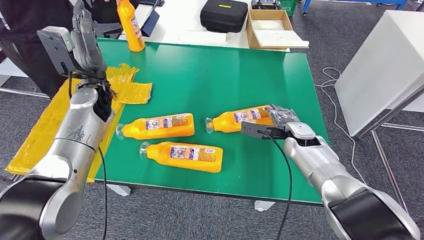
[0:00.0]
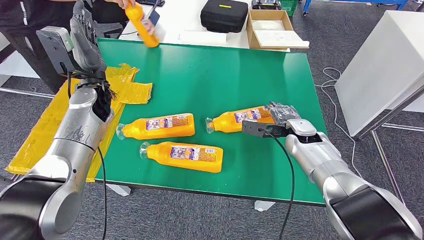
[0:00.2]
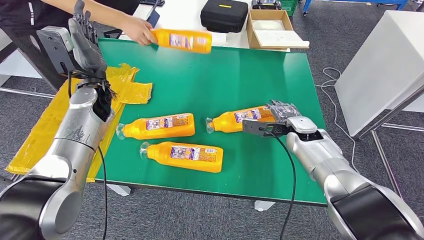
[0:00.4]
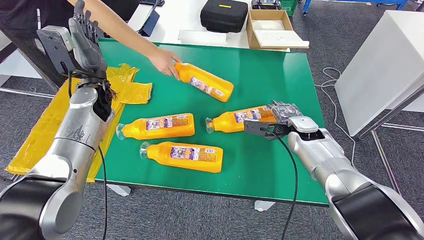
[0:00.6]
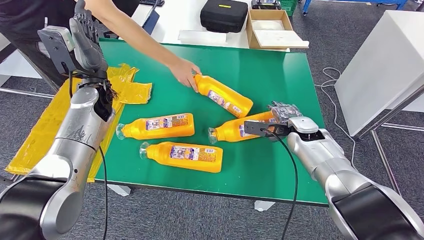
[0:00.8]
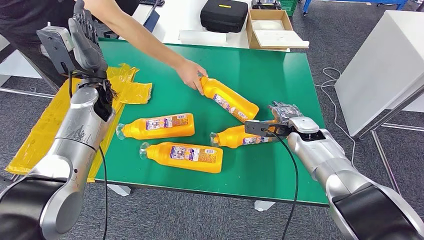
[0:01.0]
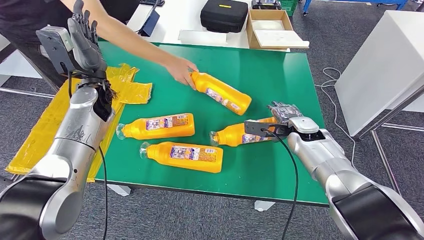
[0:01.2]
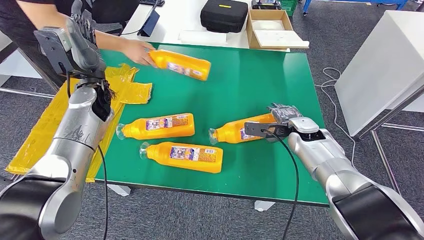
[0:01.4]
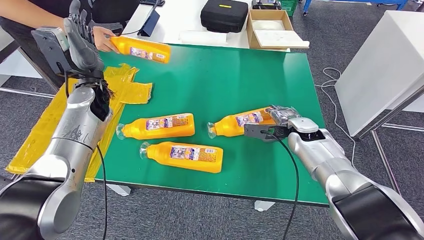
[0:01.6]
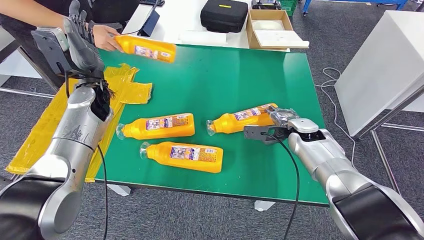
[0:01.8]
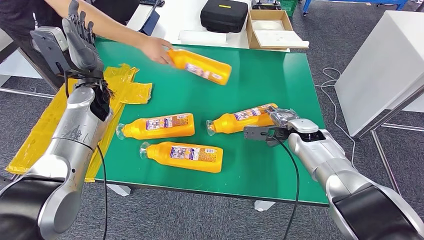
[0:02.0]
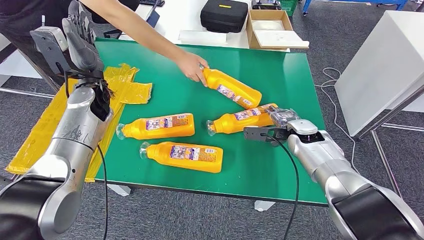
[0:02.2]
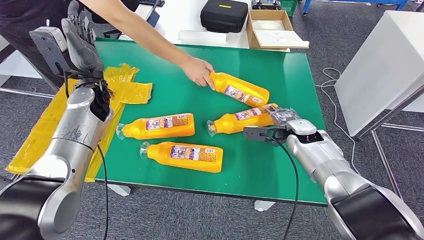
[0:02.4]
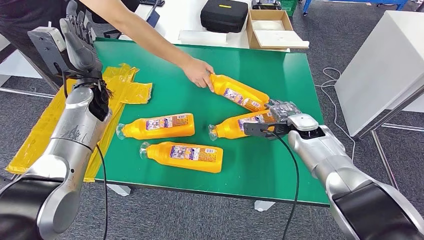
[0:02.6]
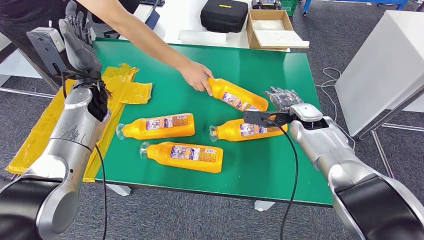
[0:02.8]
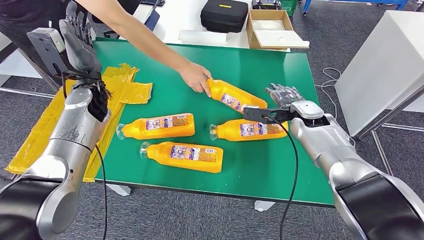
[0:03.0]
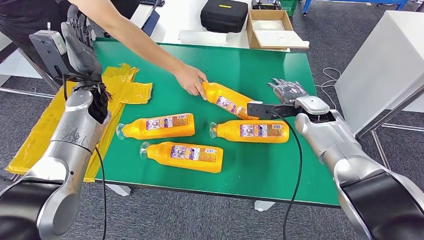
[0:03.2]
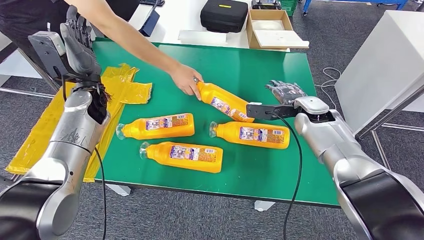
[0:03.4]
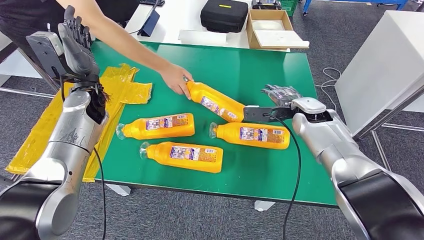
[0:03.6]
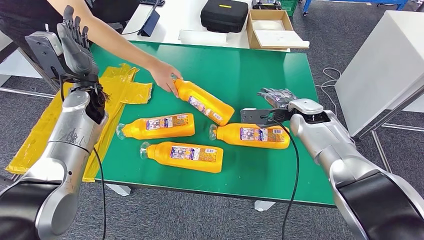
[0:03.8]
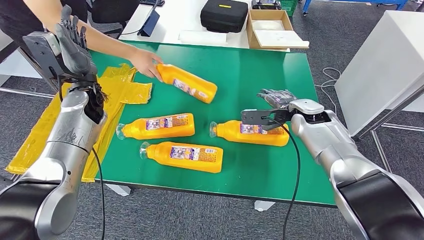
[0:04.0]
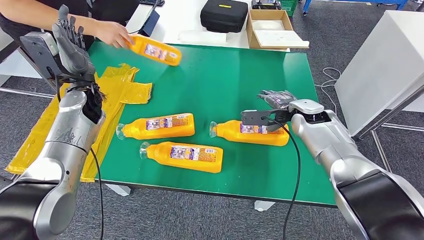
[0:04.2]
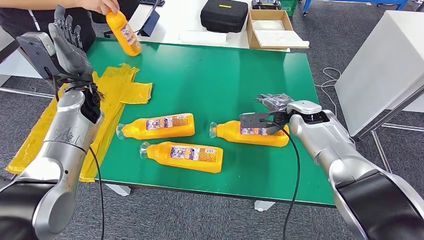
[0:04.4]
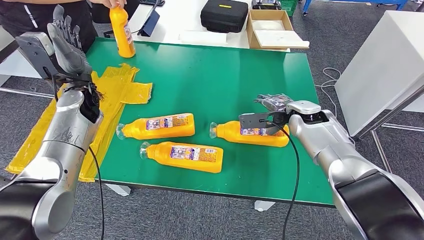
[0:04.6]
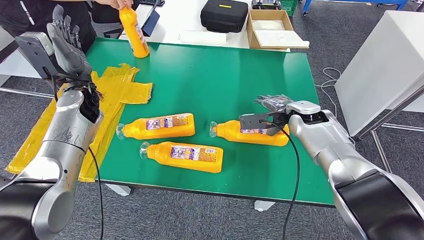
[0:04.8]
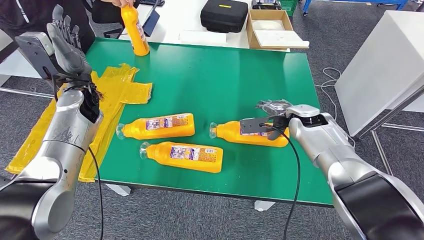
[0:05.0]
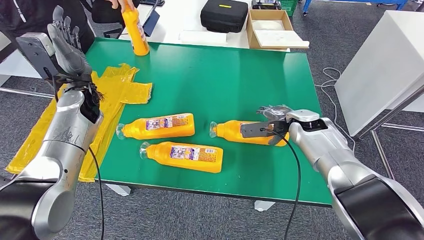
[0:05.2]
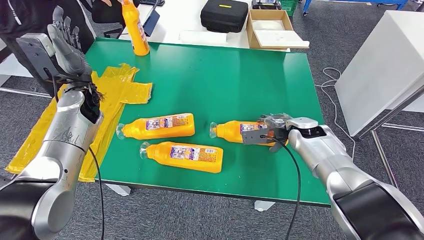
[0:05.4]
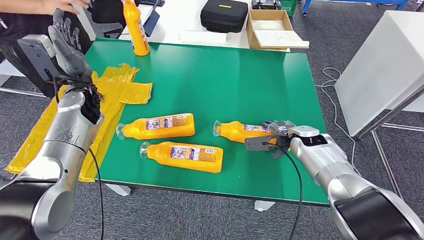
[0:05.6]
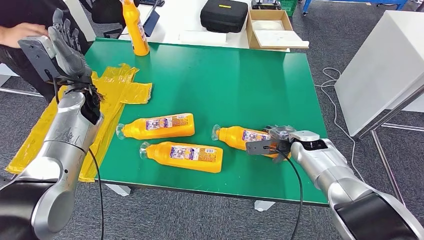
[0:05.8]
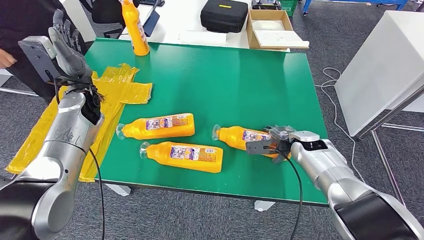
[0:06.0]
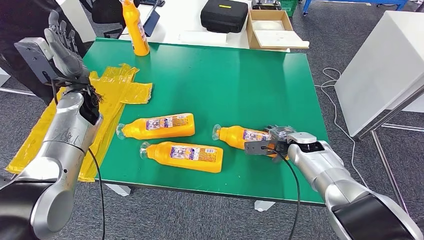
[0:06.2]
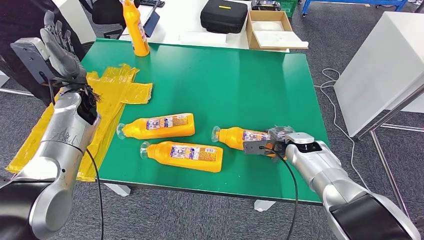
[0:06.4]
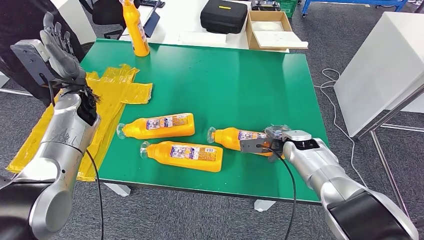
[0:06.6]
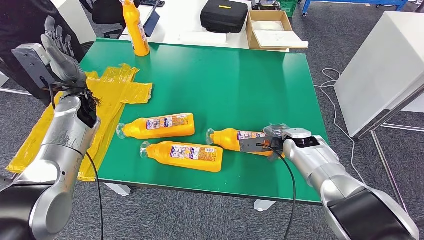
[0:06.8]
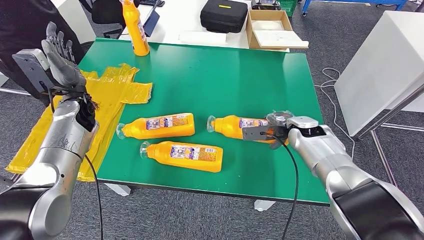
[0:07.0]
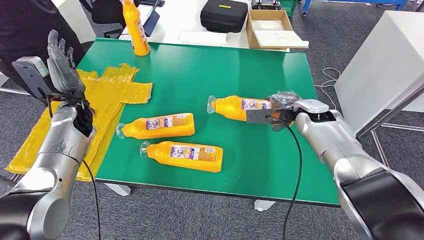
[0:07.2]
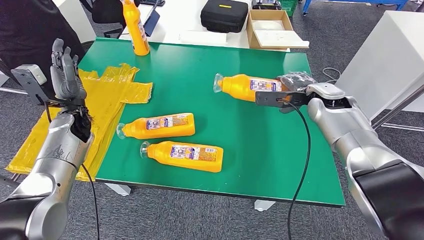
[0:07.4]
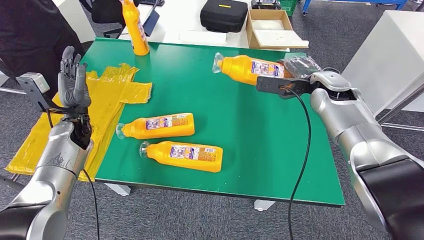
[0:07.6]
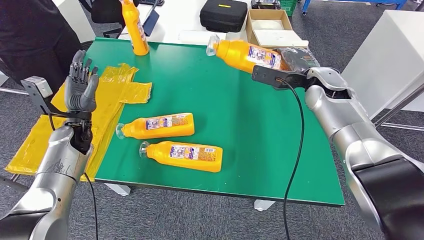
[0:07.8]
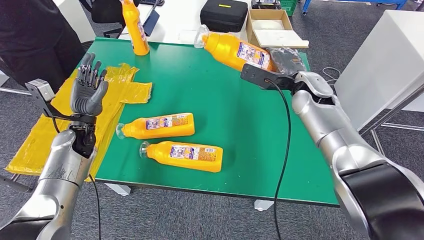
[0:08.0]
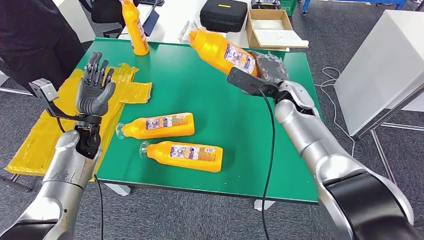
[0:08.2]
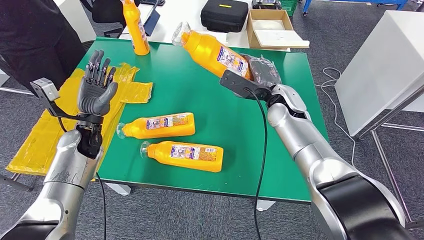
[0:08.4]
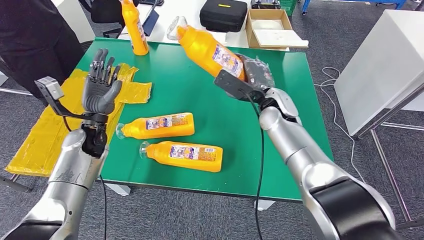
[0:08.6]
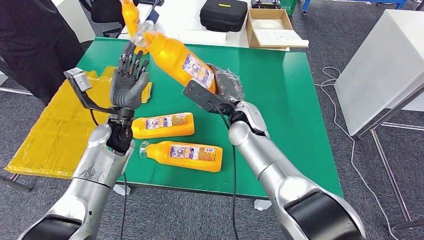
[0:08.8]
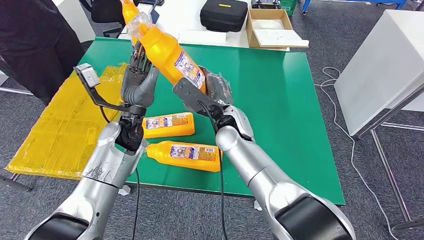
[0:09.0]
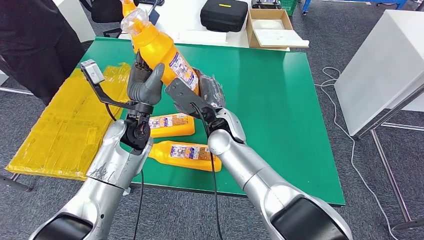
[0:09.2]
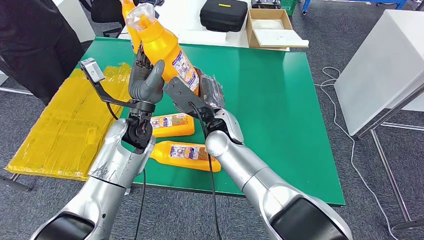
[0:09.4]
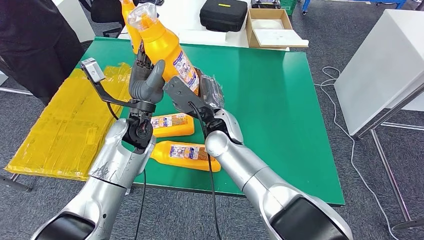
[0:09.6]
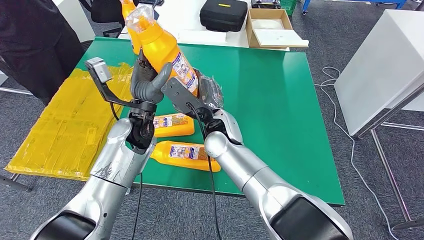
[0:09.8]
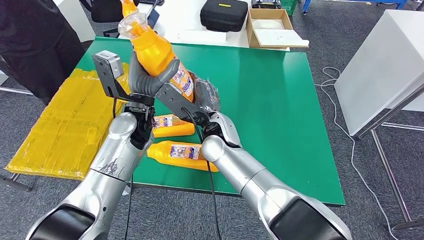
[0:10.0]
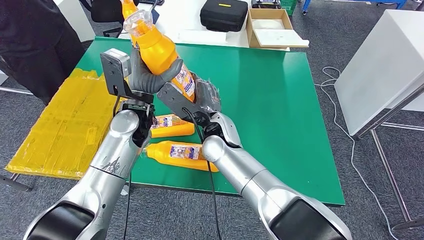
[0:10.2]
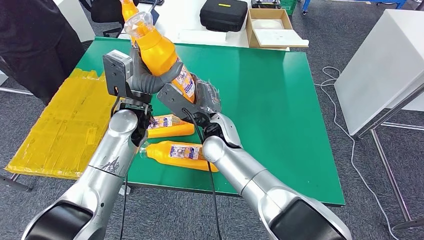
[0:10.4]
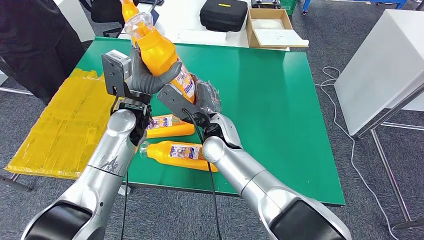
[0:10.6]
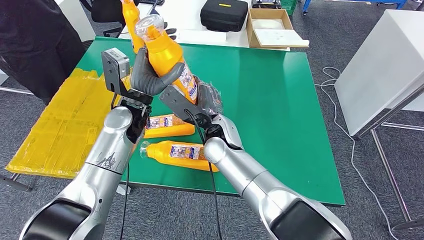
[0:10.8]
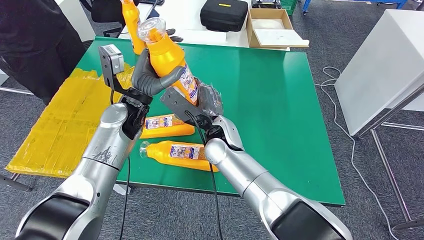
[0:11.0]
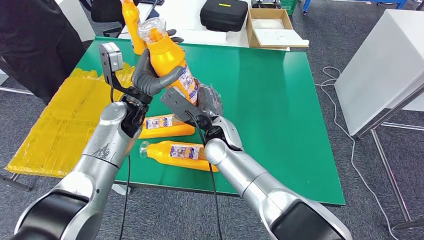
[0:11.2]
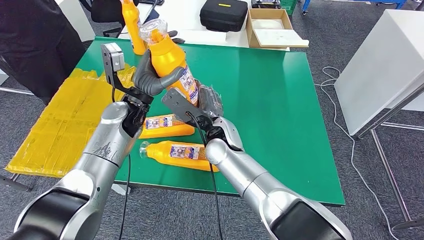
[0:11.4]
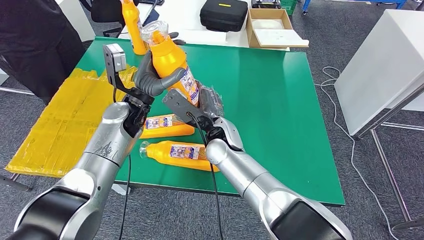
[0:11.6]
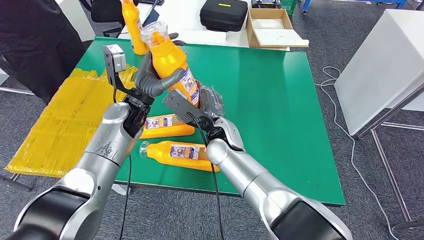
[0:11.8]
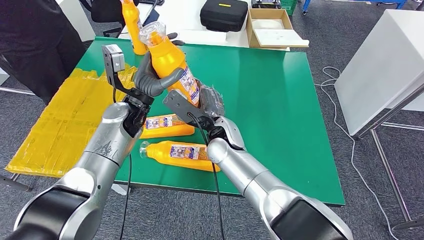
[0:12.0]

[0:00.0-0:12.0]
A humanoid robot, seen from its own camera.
Step, 0:03.4 to 0:10.8: Pick up the fast-moving consumer goods bottle from the table.
0:00.0 to 0:01.6: The hands move only a little.
0:01.6 to 0:03.0: The right hand ends up roughly 5 cm from where it was.
0:03.0 to 0:04.4: There are only small adjustments of the hands.
0:04.4 to 0:06.0: The right hand shifts roughly 10 cm downward.

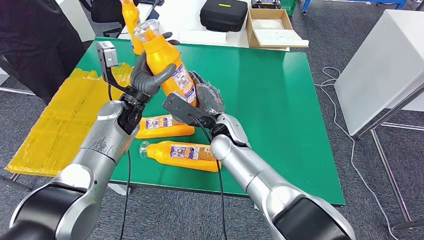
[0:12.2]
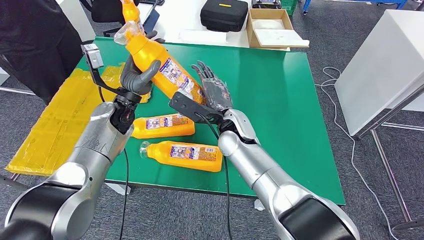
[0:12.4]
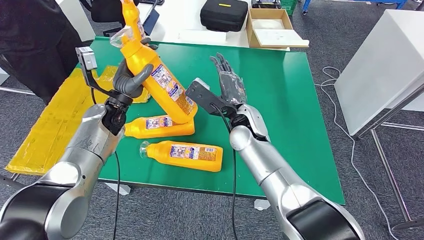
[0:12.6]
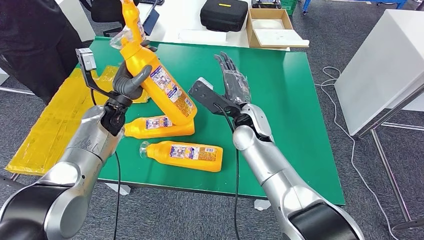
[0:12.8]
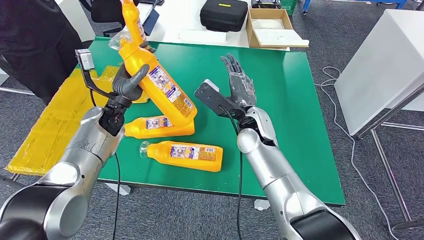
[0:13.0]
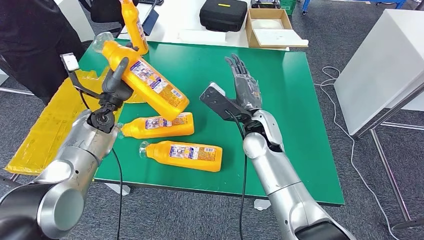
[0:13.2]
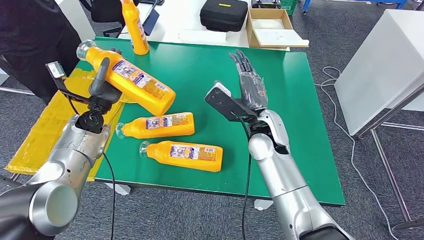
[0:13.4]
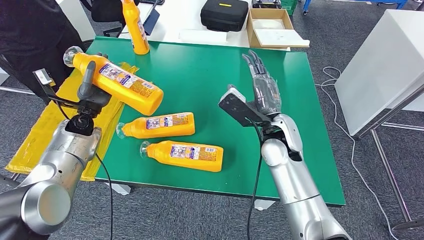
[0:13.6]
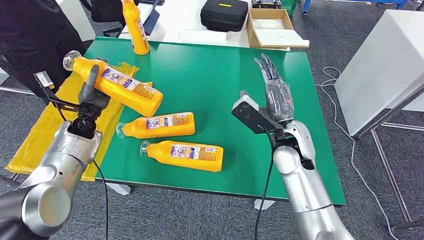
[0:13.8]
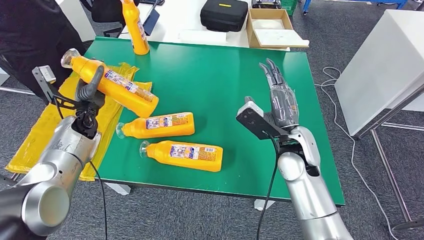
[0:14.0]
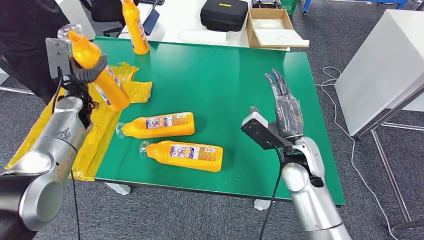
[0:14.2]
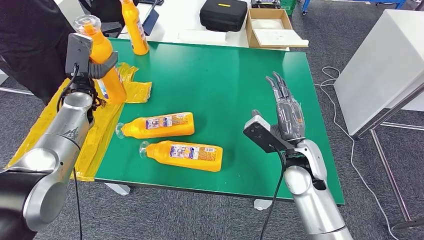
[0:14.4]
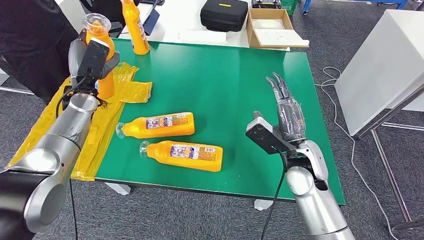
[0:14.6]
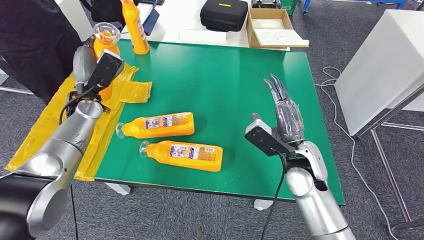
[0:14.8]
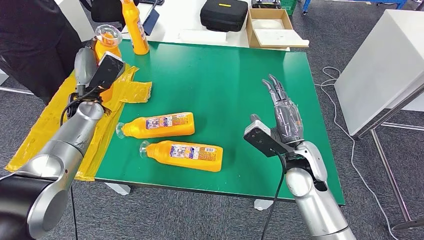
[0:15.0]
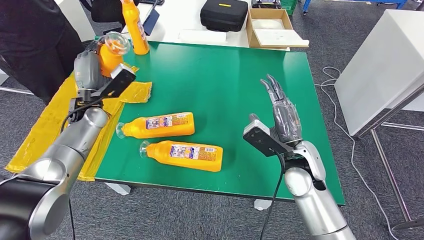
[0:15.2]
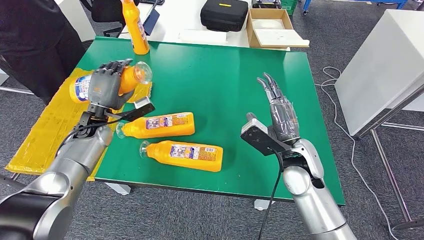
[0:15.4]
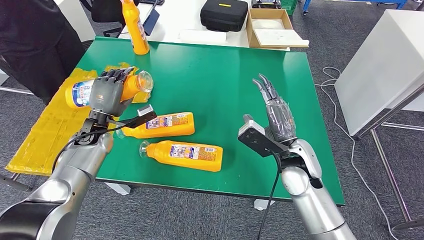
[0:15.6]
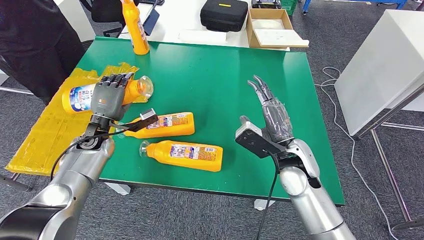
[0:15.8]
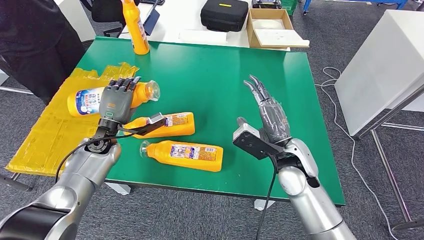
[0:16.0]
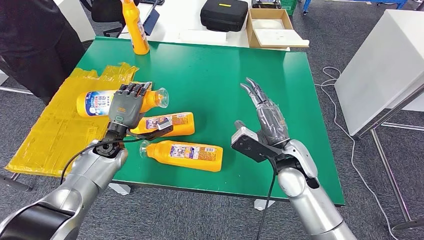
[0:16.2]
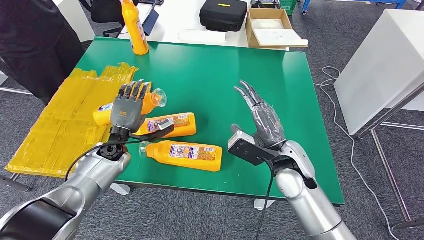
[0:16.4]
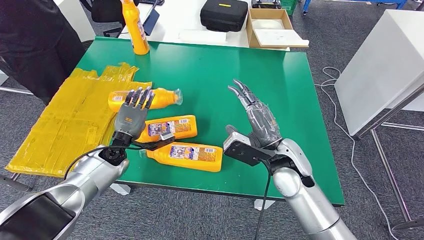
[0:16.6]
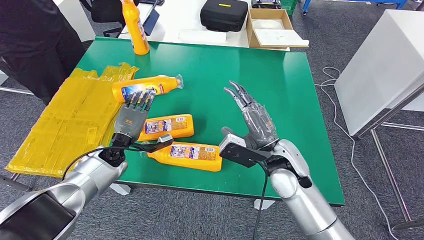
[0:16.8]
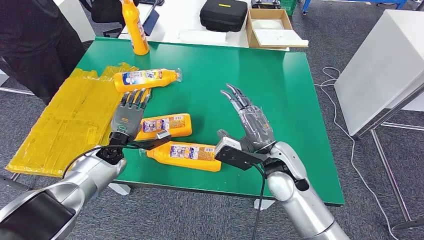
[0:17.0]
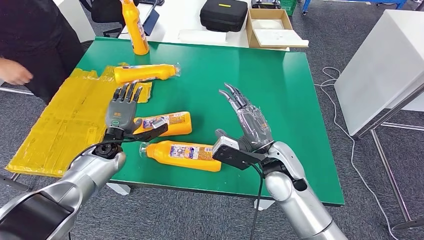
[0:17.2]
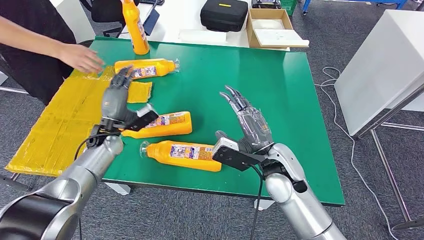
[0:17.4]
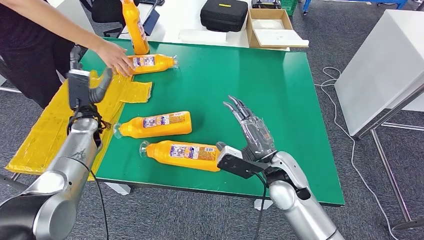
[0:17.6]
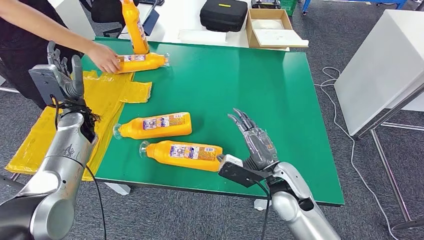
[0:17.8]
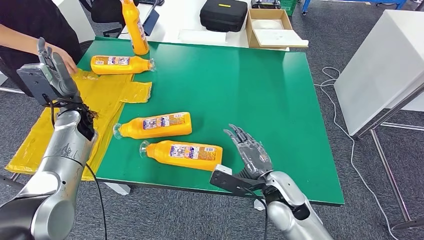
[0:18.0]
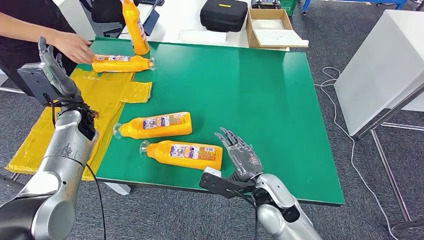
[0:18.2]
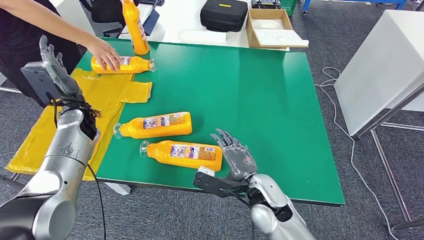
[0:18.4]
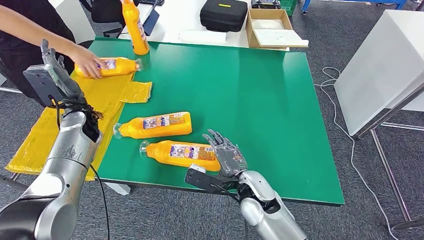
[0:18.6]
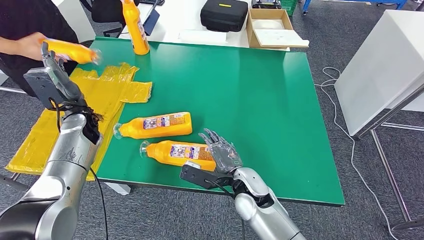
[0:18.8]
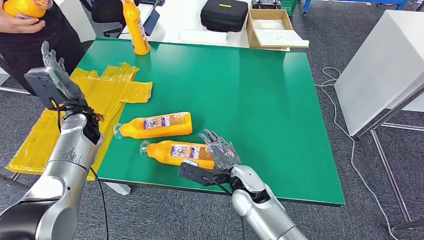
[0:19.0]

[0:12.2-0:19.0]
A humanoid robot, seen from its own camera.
Step, 0:12.2 to 0:17.8: Flip the fast-moving consumer goods bottle to the front side.
0:13.6 to 0:15.0: The left hand shifts by roughly 5 cm; the right hand shifts some 5 cm to the right.
0:15.0 to 0:16.2: The left hand heads downward, to the right and backward, covering about 10 cm.
